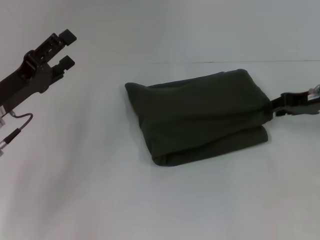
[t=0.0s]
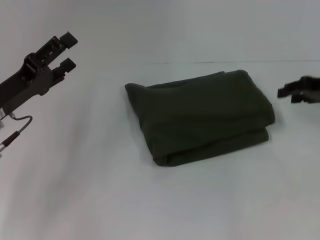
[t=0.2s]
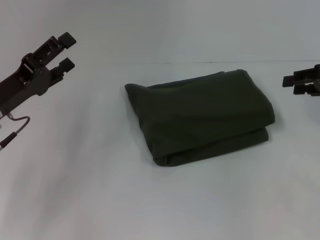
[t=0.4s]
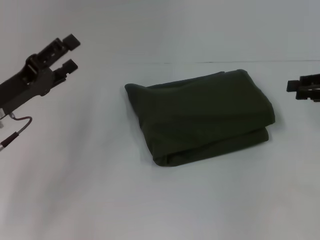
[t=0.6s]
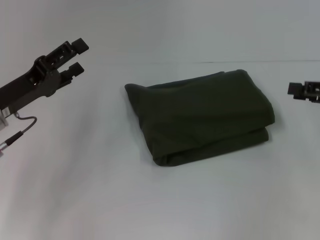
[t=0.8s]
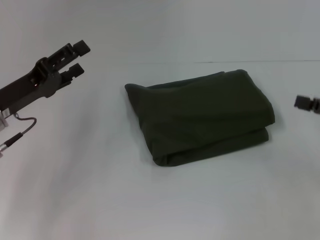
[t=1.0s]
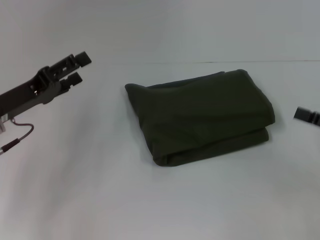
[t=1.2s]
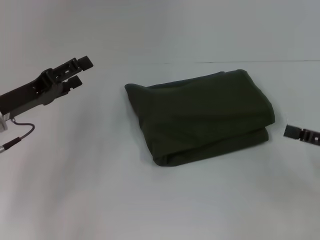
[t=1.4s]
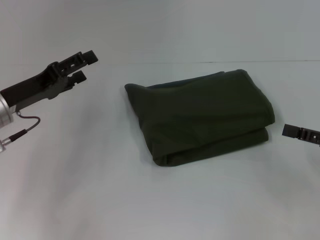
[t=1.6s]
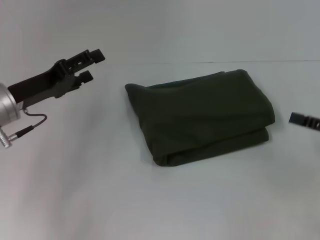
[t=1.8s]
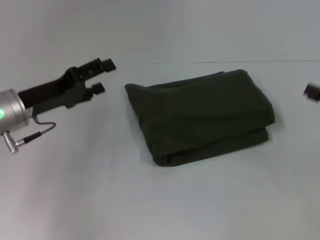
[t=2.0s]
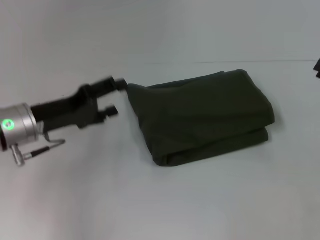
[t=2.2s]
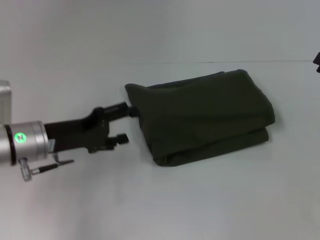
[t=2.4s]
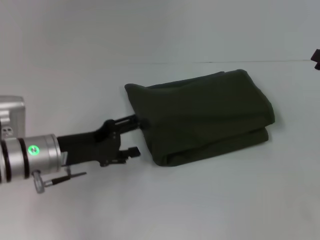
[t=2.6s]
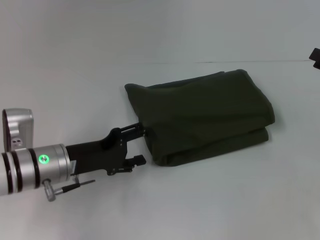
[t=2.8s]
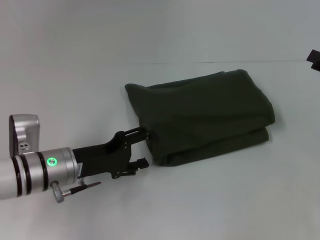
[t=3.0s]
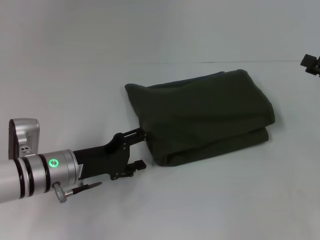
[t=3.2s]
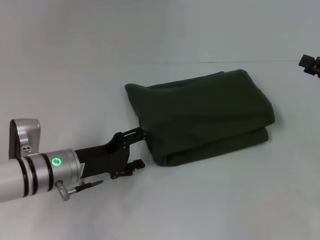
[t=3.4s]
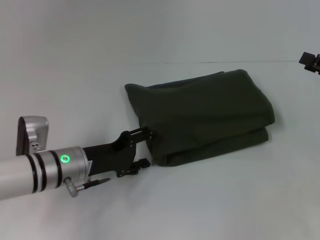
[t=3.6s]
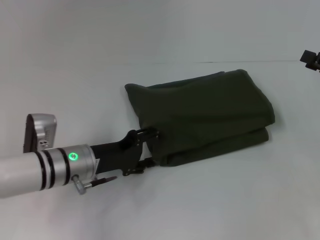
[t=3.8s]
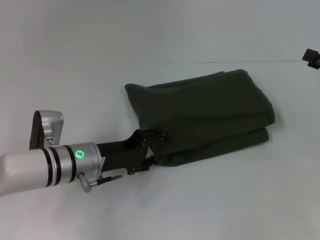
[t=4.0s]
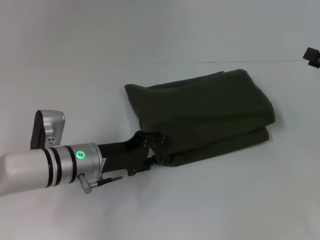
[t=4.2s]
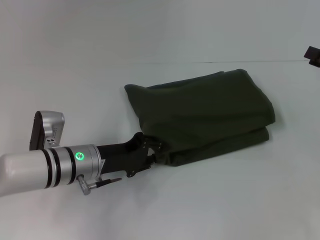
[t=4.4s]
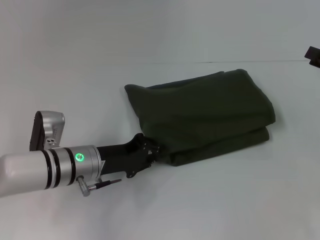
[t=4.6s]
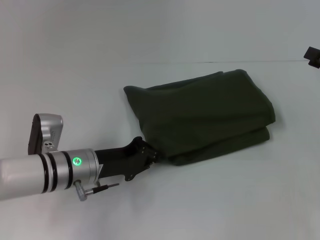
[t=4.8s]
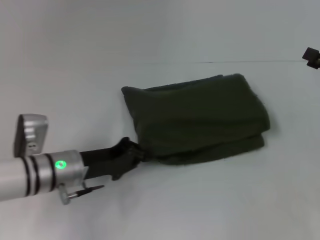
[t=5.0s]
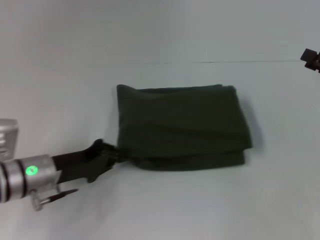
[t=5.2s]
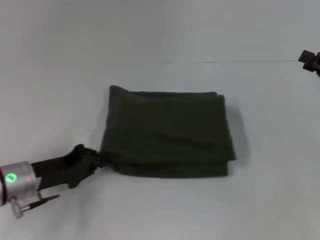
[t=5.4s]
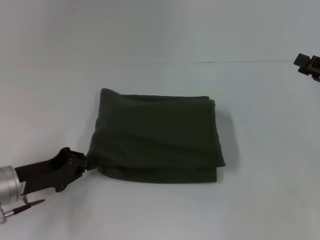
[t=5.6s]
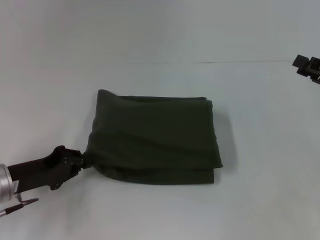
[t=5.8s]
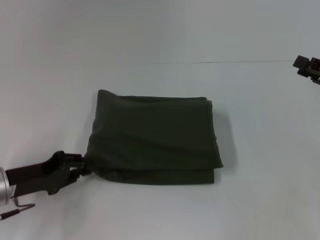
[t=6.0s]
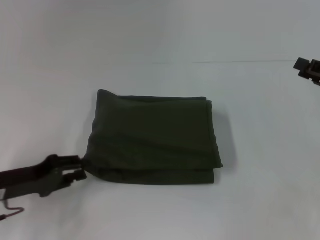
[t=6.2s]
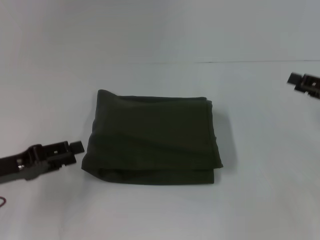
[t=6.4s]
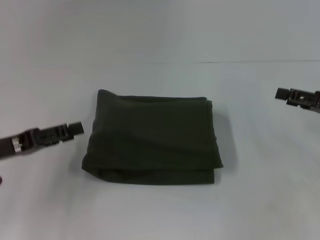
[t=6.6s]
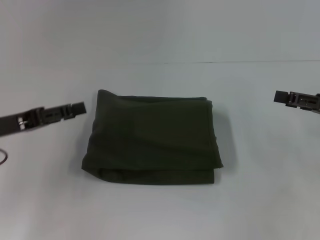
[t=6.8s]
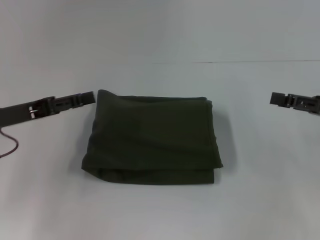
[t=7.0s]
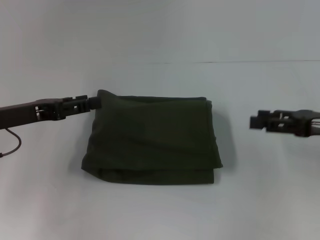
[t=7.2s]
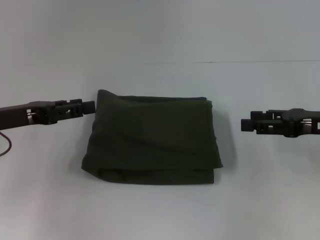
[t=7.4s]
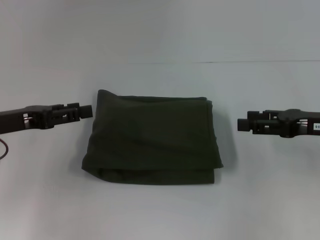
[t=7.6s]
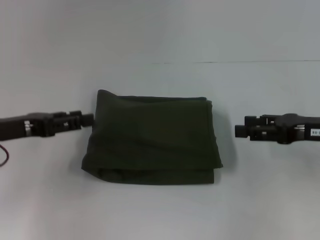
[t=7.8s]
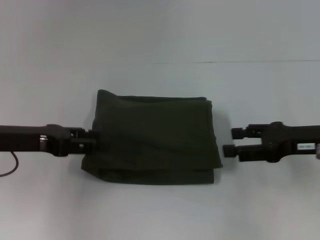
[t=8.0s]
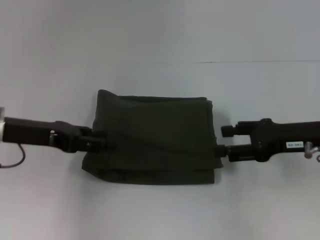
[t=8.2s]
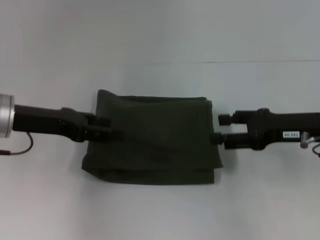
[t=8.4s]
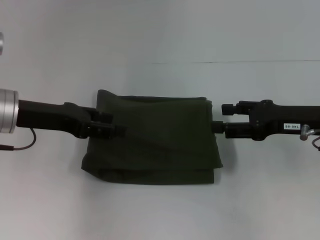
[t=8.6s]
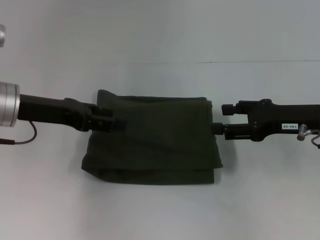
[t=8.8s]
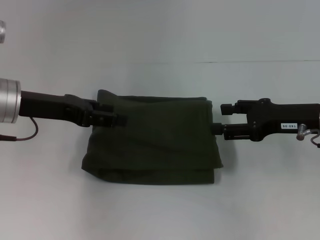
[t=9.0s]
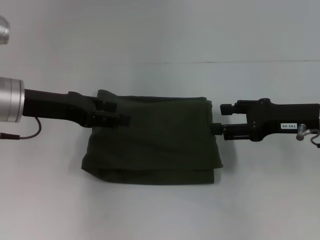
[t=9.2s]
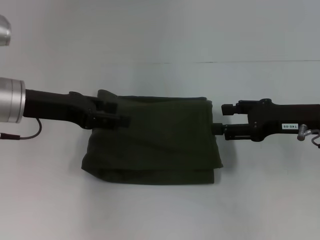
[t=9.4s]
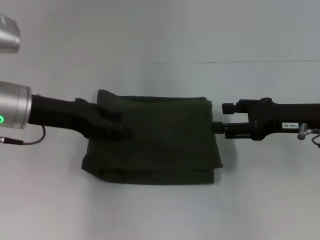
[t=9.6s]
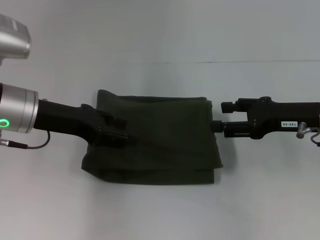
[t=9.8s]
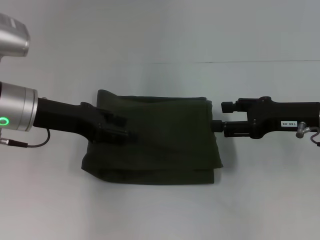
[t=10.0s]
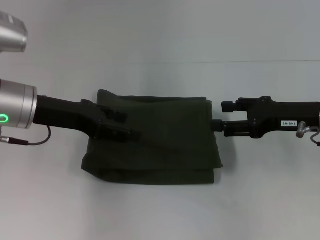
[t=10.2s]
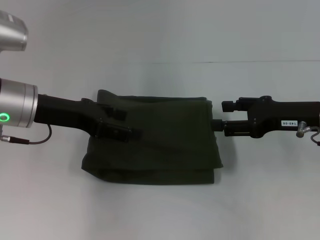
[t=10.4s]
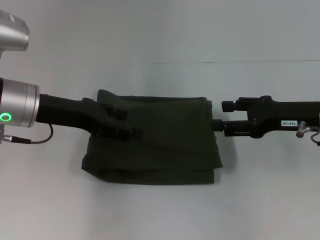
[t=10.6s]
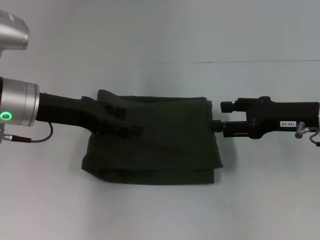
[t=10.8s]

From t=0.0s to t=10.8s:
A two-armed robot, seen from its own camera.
From t=0.0s to t=1.6s: The right gripper is displaced backward by roughly 15 cm, and opens its fingers.
From t=1.6s to t=3.0s: The left gripper heads to the right and downward, covering some 10 cm, while the right gripper moves forward, approximately 5 cm.
From t=3.0s to t=4.6s: The left gripper closes up.
From t=4.6s to t=6.2s: The left gripper goes roughly 15 cm to the left and backward.
From t=6.2s to t=7.8s: The right gripper heads to the left, covering roughly 5 cm; the left gripper heads upward, covering about 5 cm, and opens its fingers.
From t=7.8s to t=9.2s: The left gripper goes roughly 5 cm to the right.
From t=9.2s to t=10.8s: The grippers stay close to where they were, moving slightly.

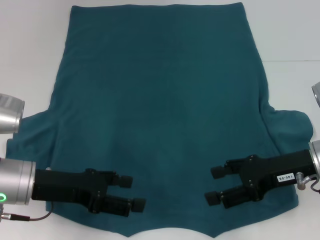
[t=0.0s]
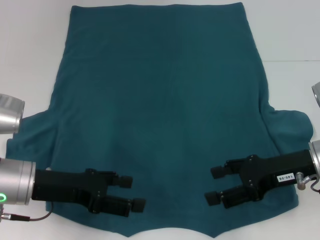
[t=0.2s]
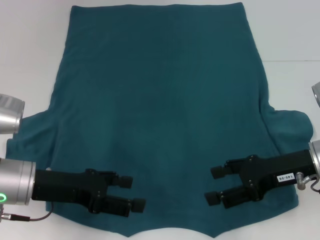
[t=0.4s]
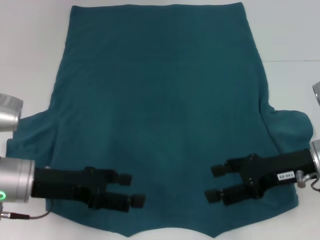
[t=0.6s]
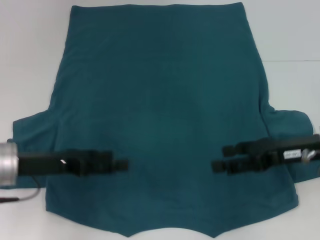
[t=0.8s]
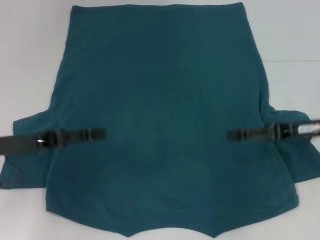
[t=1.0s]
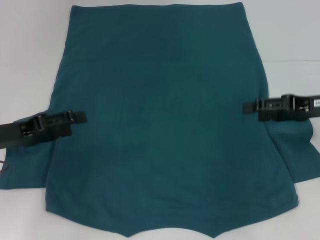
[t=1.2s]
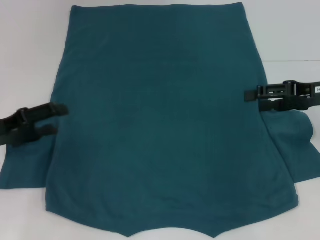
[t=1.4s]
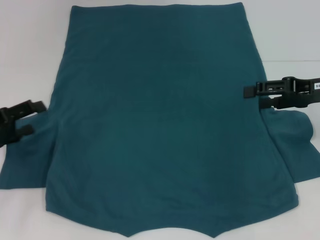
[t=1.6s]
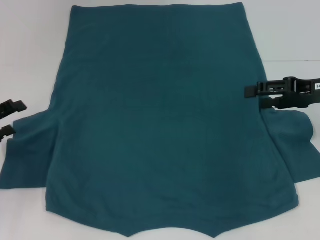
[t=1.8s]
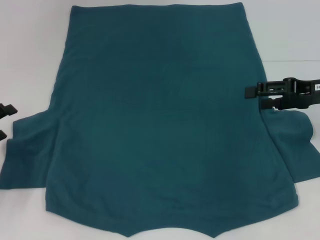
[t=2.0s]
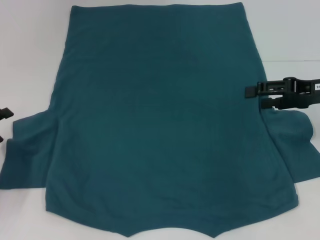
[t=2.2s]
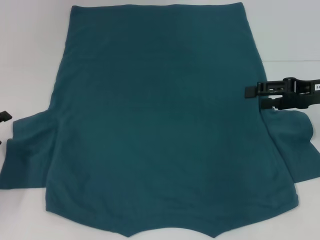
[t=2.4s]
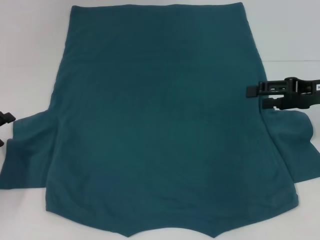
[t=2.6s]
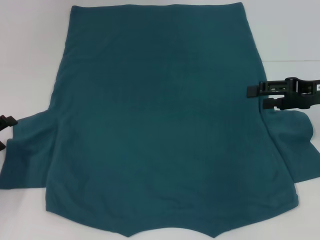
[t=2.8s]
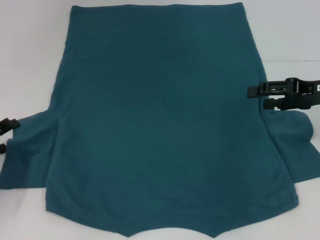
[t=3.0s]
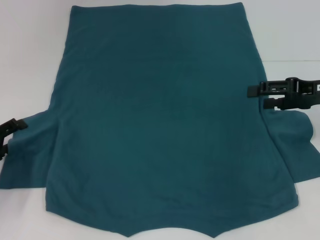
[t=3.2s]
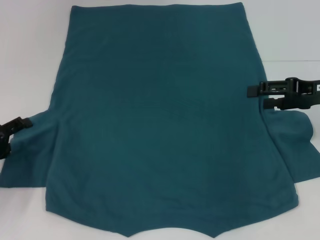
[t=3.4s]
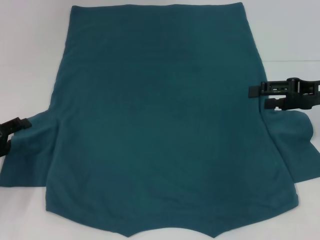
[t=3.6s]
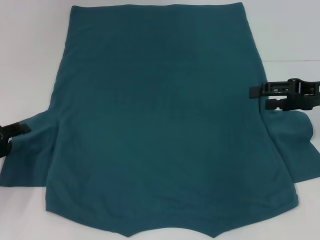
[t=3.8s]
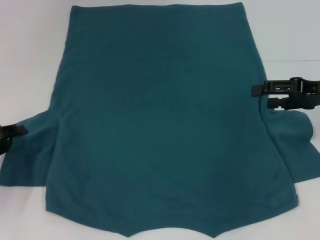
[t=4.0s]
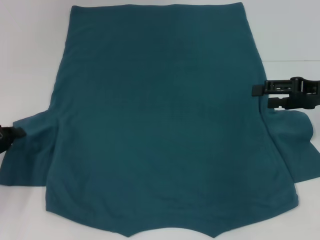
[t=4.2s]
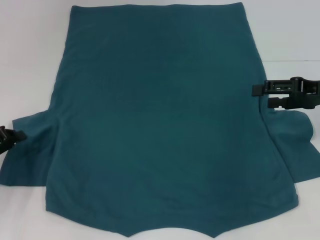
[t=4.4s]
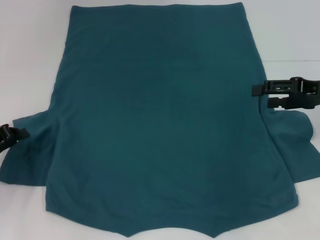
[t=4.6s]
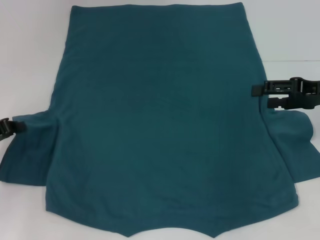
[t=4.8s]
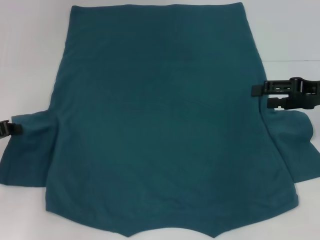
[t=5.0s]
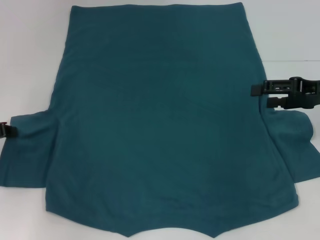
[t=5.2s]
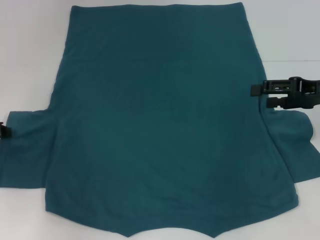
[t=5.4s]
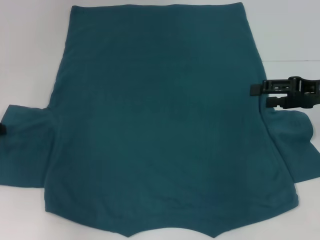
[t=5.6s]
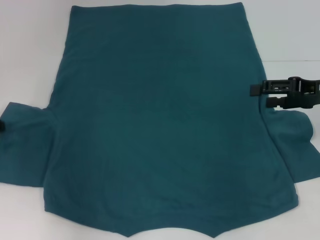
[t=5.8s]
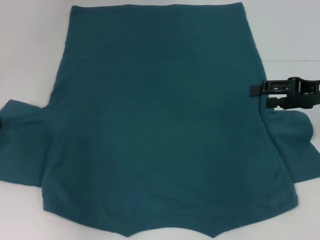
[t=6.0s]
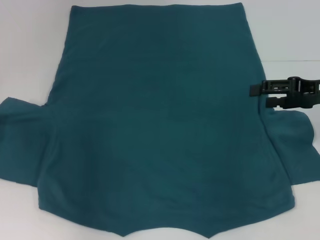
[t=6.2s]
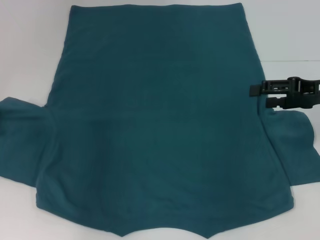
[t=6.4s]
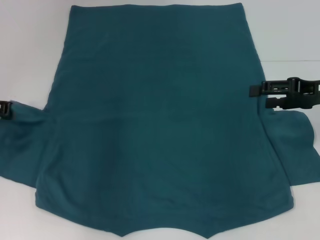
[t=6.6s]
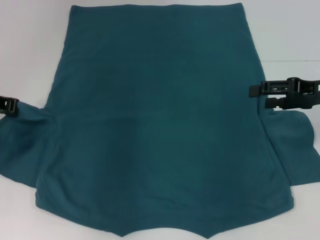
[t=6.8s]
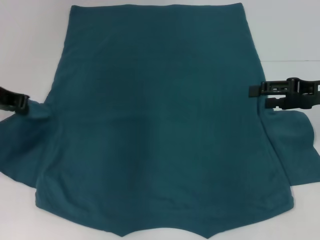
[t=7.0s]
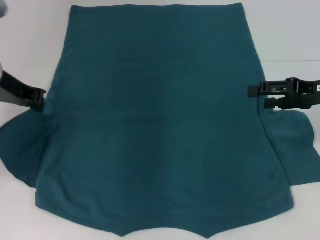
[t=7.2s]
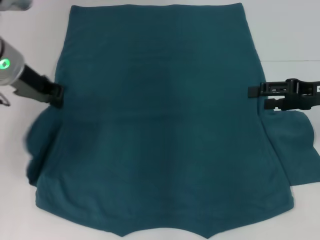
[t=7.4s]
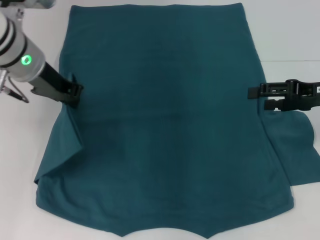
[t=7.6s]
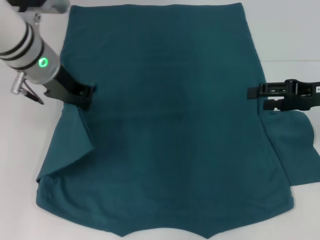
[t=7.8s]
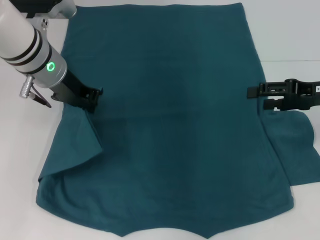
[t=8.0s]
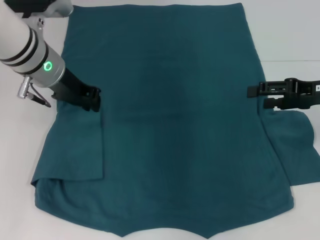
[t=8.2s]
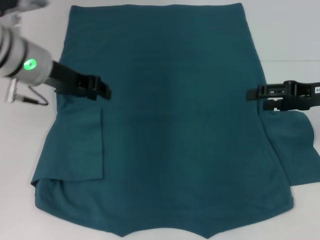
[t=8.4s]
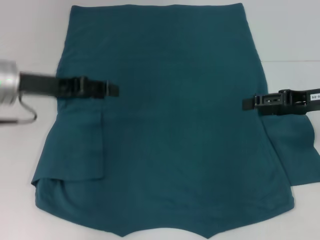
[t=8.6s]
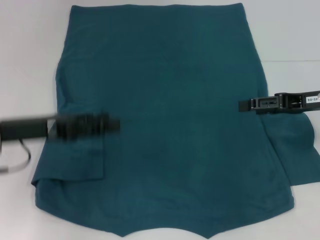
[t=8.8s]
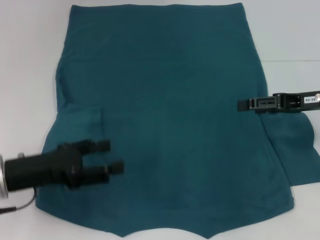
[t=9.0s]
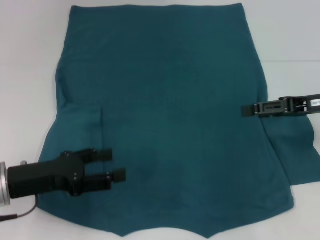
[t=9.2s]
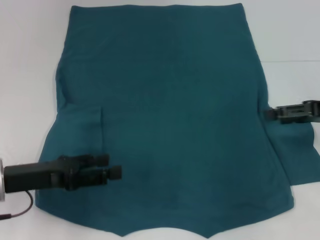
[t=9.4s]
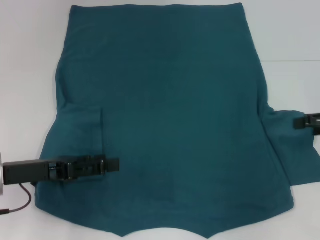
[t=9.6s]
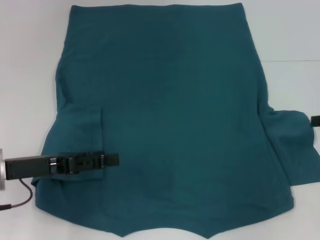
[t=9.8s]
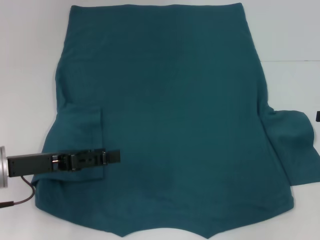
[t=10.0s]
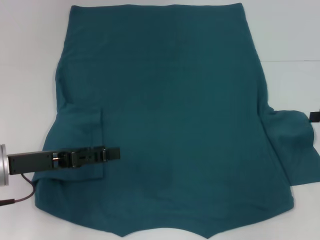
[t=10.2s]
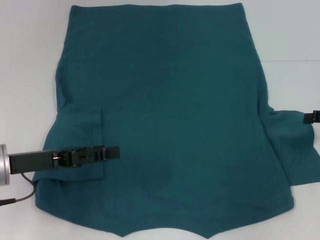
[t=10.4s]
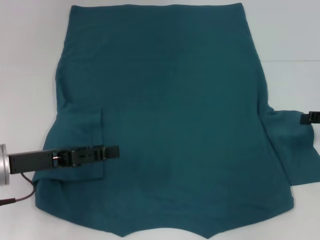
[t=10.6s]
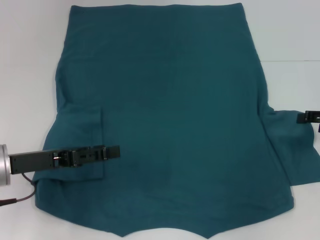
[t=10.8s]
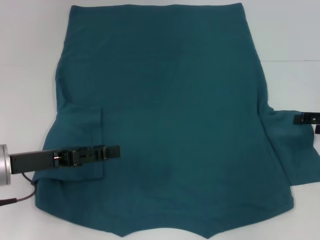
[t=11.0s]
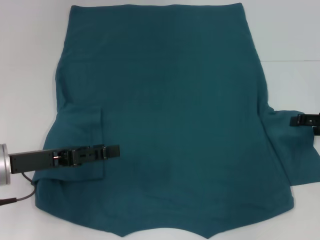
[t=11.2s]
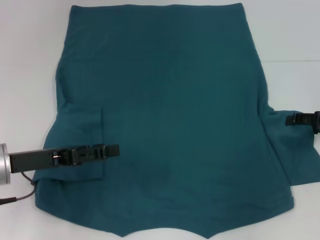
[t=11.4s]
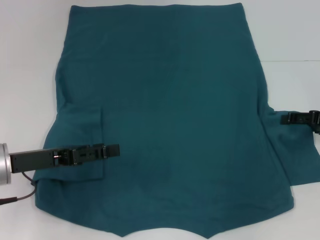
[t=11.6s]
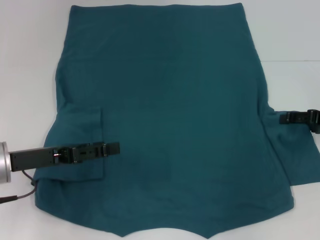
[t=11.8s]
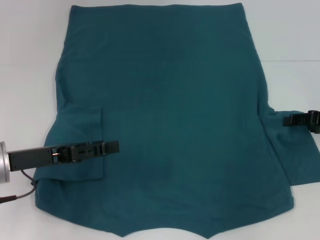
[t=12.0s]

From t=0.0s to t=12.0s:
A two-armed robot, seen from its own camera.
Step, from t=0.0s to t=8.2s: Fold the bottom left sleeve with your left hand.
From t=0.0s to t=1.6s: The right gripper moves forward, to the right and upward, approximately 10 cm, while the left gripper shifts approximately 10 cm to the left.
From t=1.6s to t=3.0s: The left gripper moves about 5 cm.
From t=3.0s to t=4.4s: The left gripper closes.
From t=4.4s to t=6.0s: The left gripper travels upward and forward by roughly 10 cm.
From t=6.0s to t=7.6s: The left gripper shifts approximately 20 cm to the right and upward.
From t=7.6s to t=9.0s: The left gripper travels backward, downward and to the left by approximately 20 cm, and opens its fingers.
From t=9.0s to t=10.4s: The right gripper travels to the right by some 10 cm.
From t=10.4s to t=12.0s: There are only small adjustments of the grippers.
